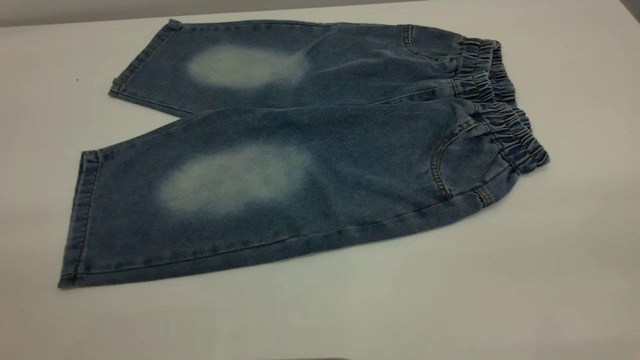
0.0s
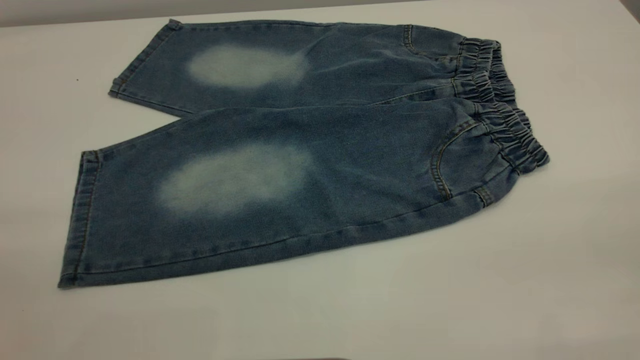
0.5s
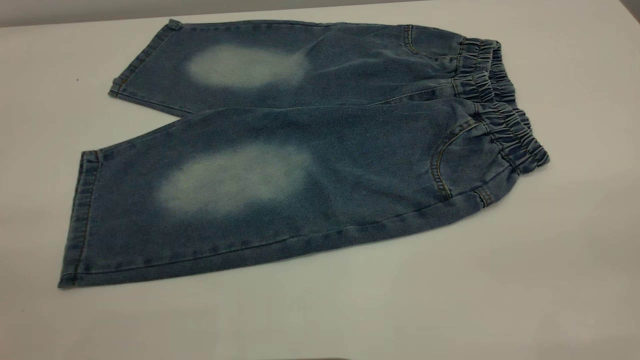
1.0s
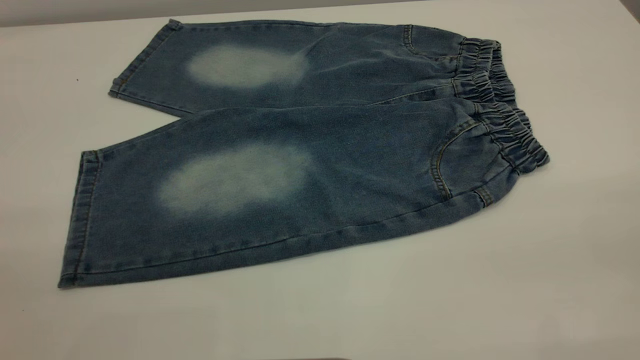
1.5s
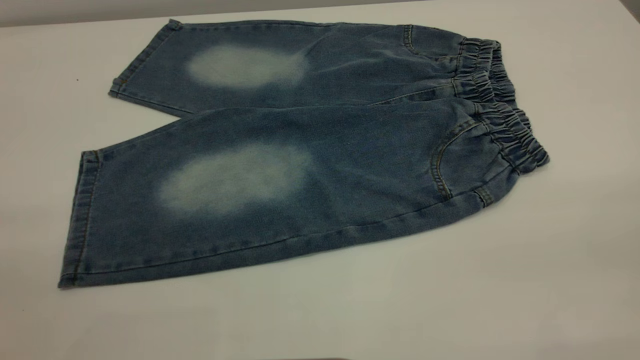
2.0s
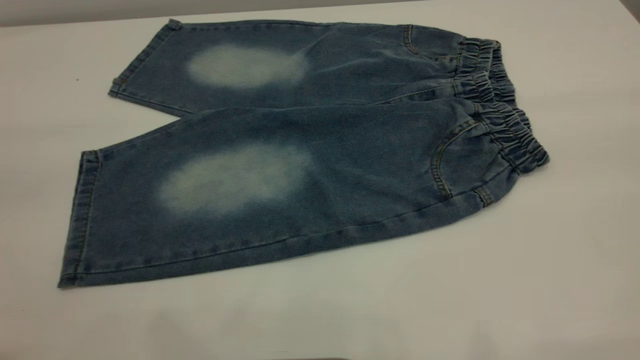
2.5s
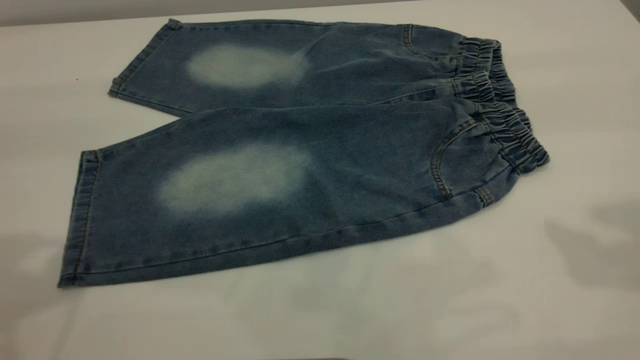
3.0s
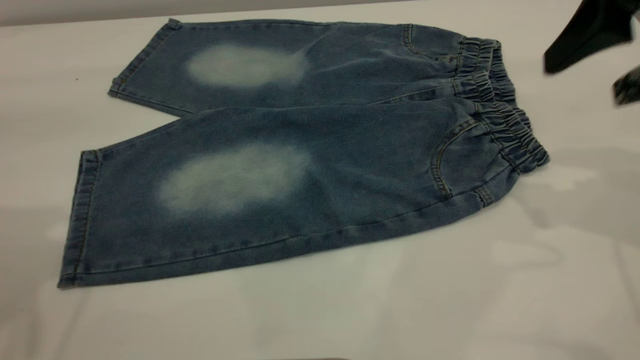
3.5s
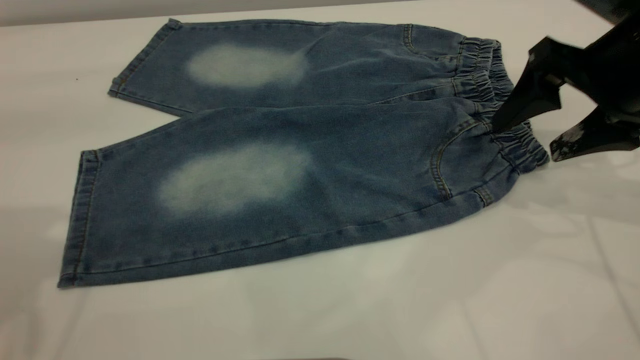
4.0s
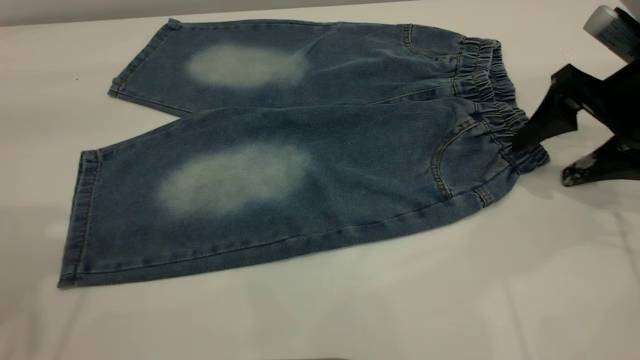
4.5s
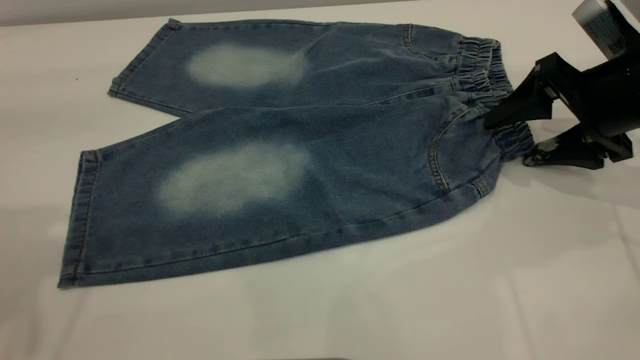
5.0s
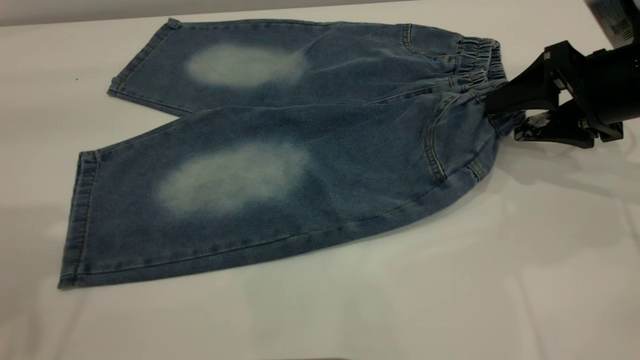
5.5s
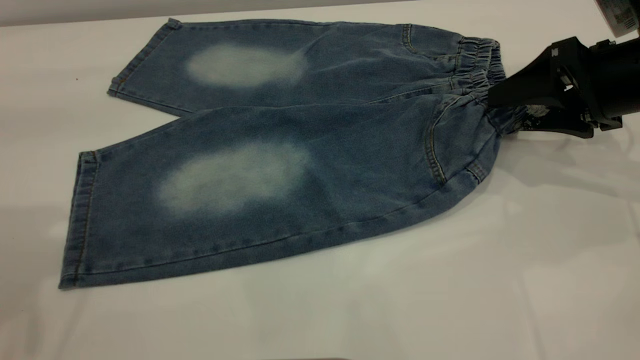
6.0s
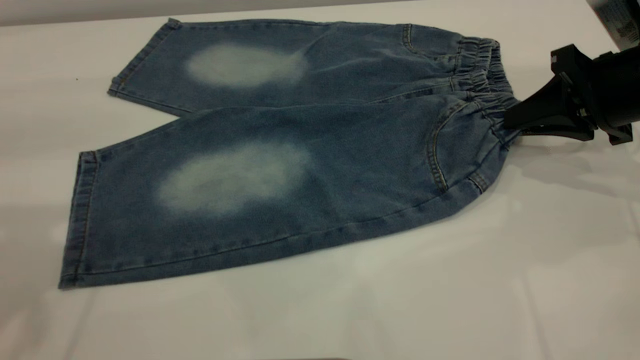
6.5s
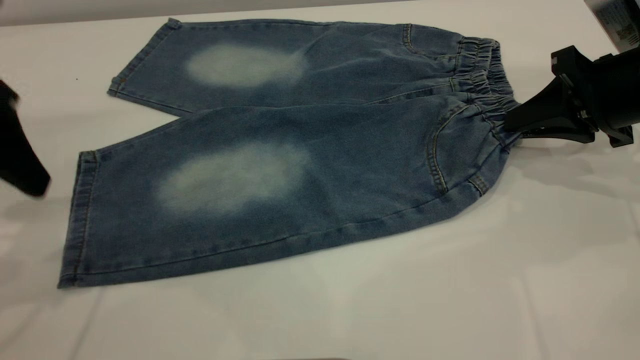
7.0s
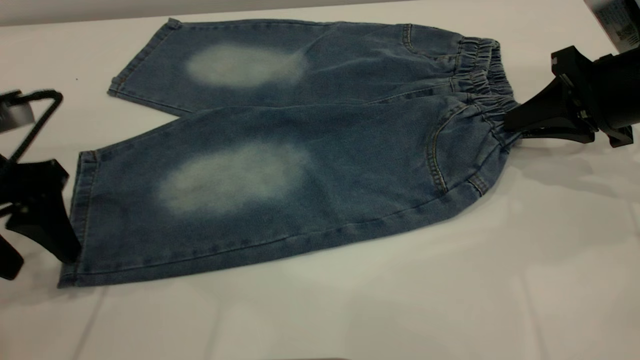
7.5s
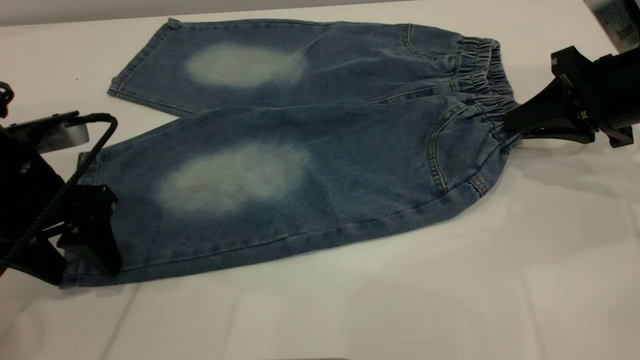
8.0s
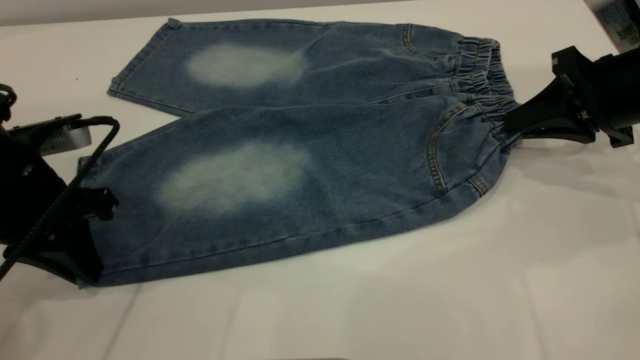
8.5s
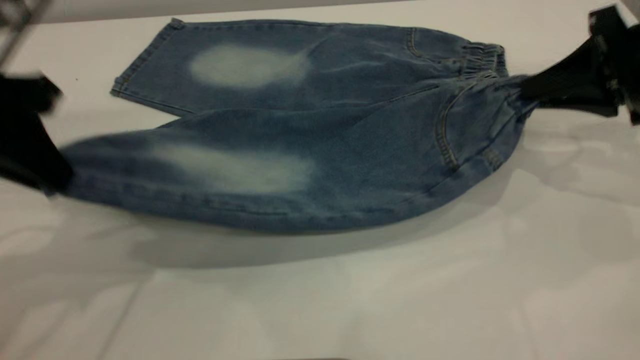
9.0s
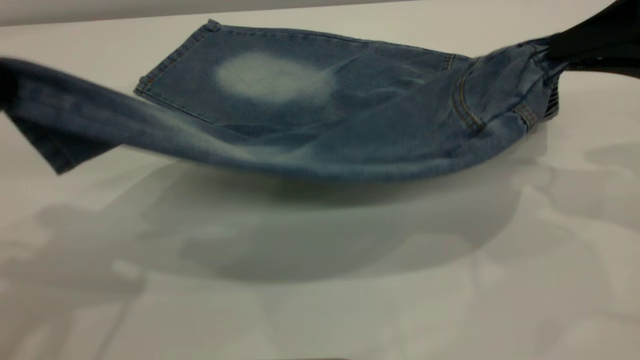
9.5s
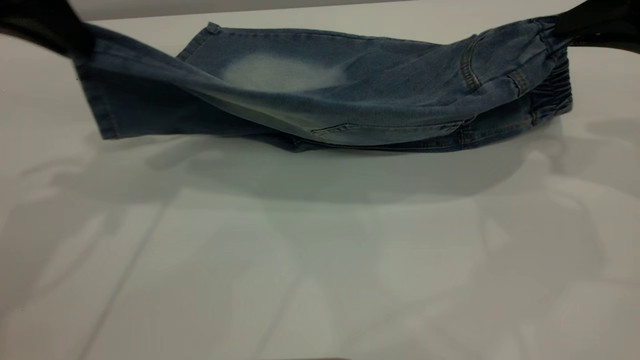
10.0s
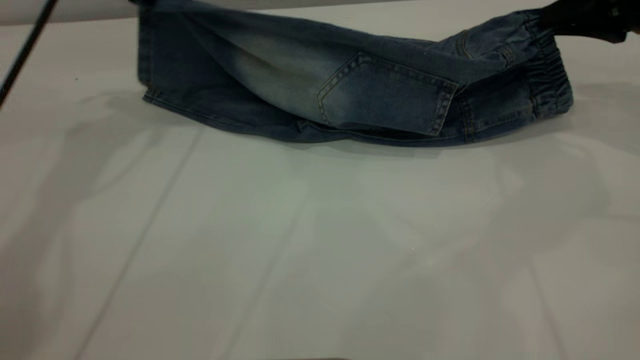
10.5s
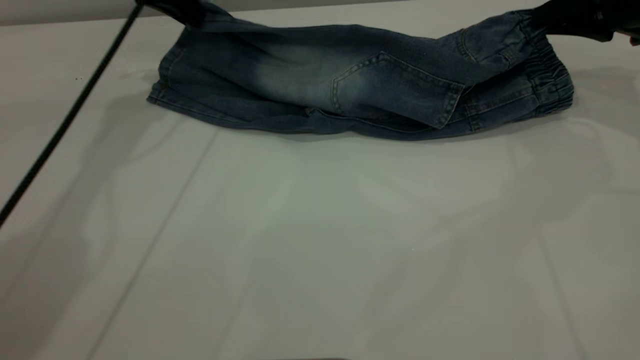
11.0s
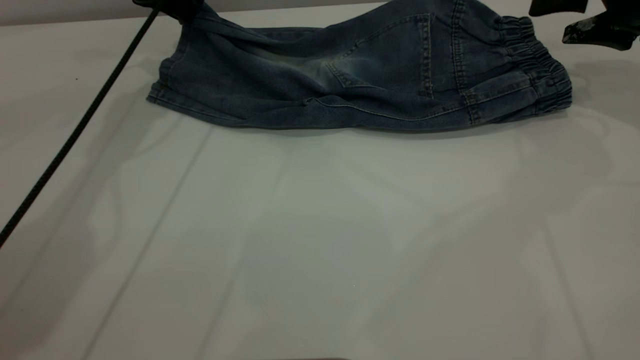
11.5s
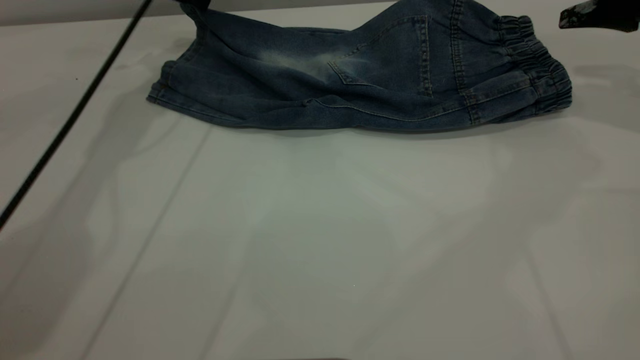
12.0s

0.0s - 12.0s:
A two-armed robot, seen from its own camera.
0.0s - 2.0s: Both grippers stay about where they are.
2.0s - 4.0s: The right gripper goes about 35 cm forward and downward.
4.0s - 6.0s: The right gripper shifts by roughly 5 cm.
6.0s - 8.0s: The right gripper closes. Meanwhile the left gripper moves downward, approximately 20 cm.
8.0s - 10.0s: The right gripper travels upward by roughly 10 cm; the left gripper goes some 15 cm upward and forward, and closes up.
10.0s - 12.0s: The left gripper heads forward, covering about 20 cm, and opens up. Meanwhile the right gripper shifts about 10 cm forward, and opens its fingers.

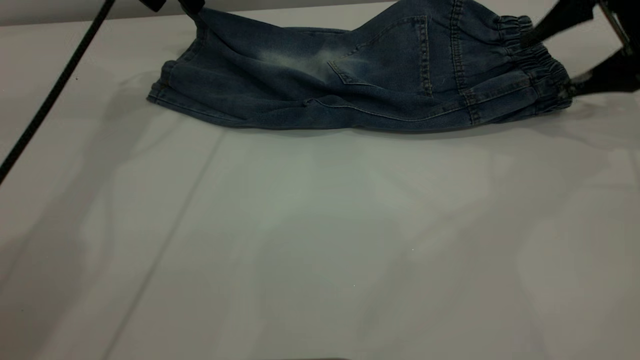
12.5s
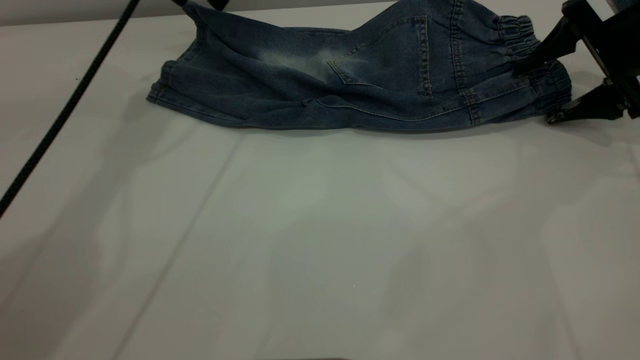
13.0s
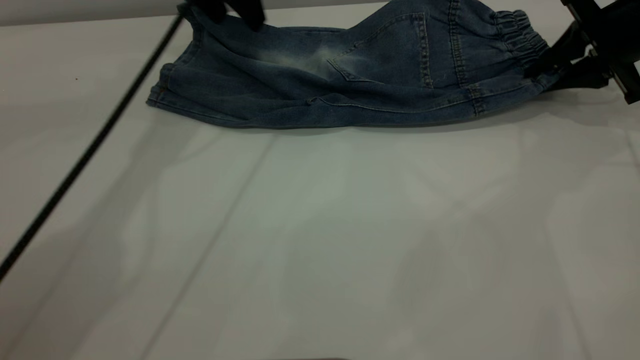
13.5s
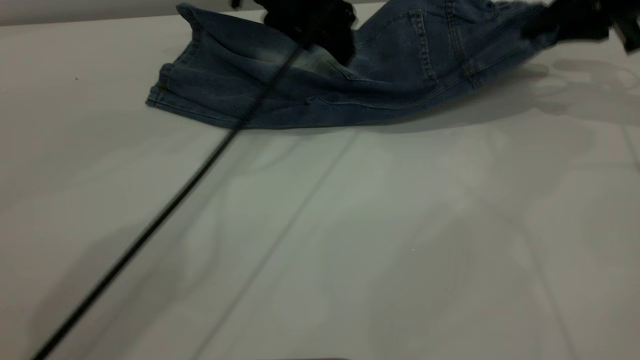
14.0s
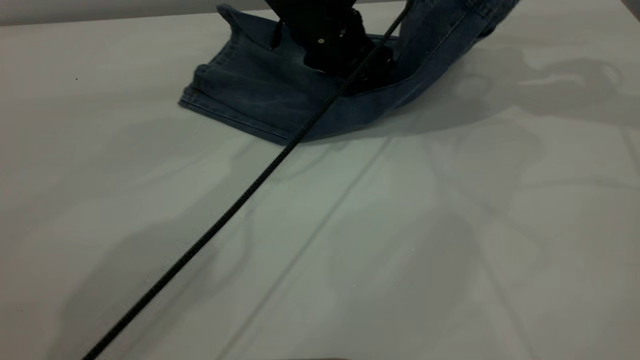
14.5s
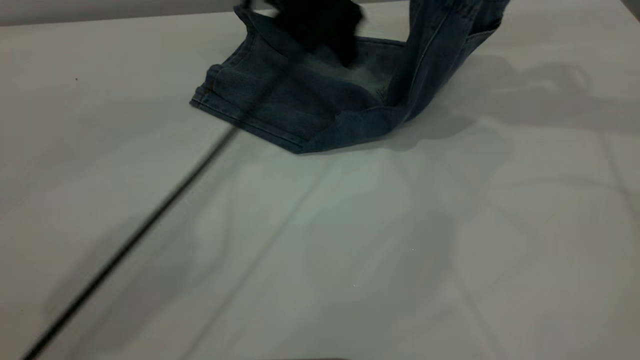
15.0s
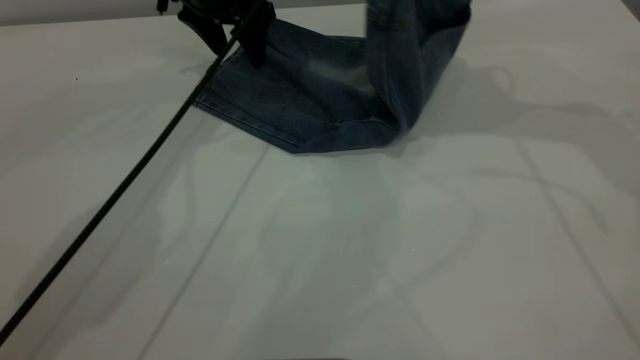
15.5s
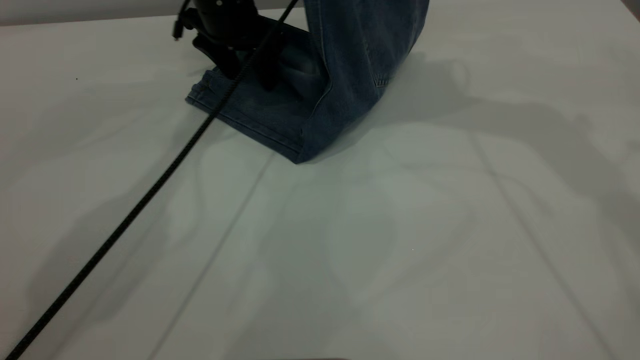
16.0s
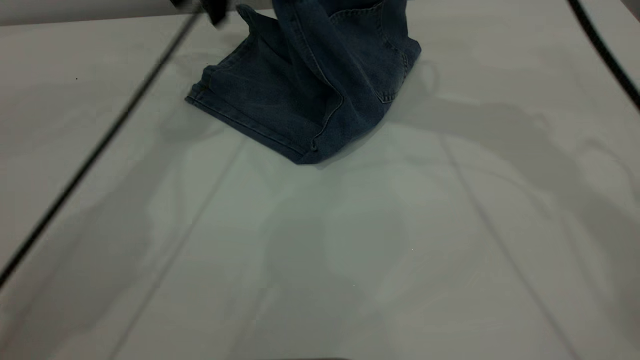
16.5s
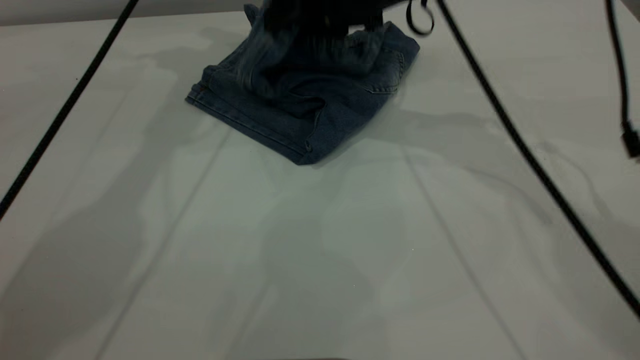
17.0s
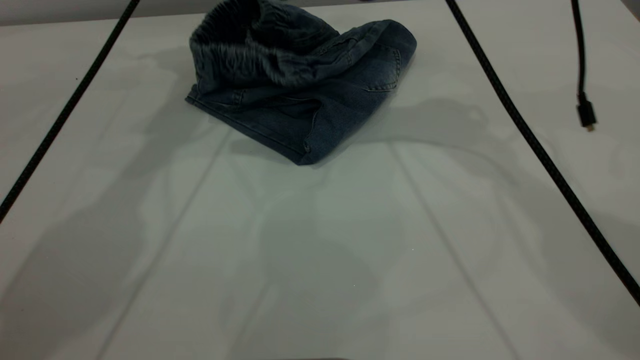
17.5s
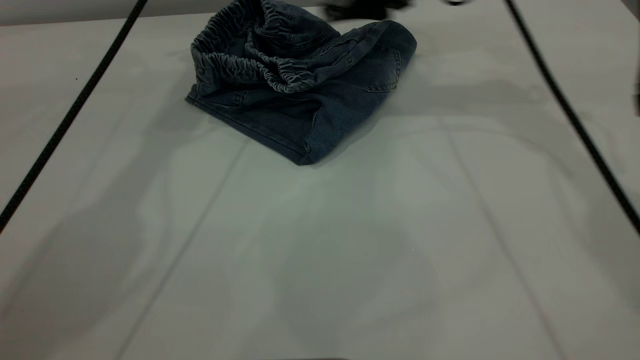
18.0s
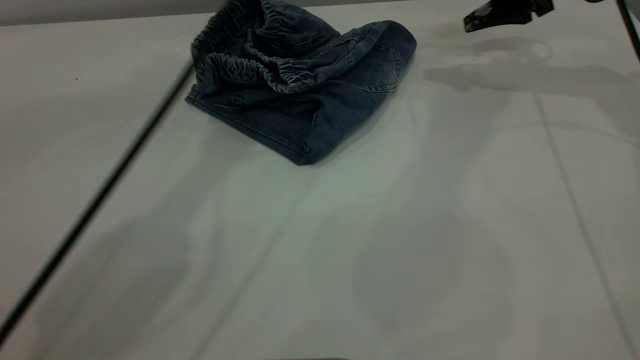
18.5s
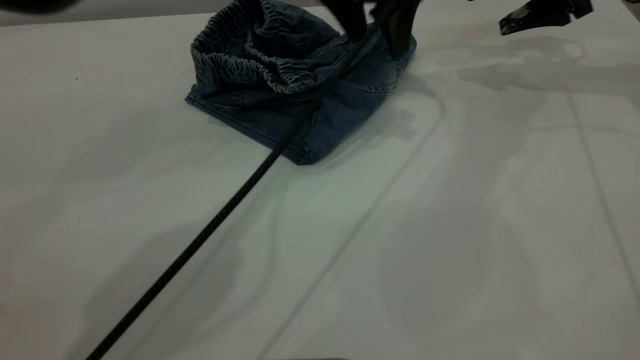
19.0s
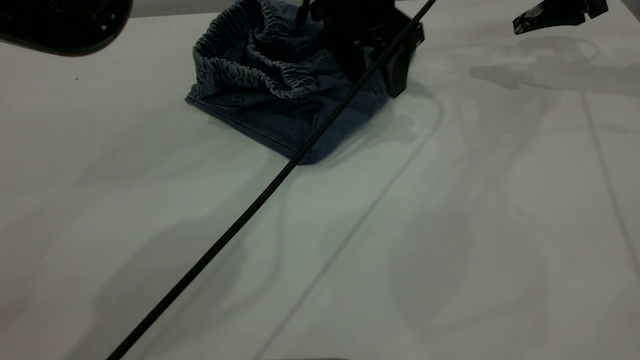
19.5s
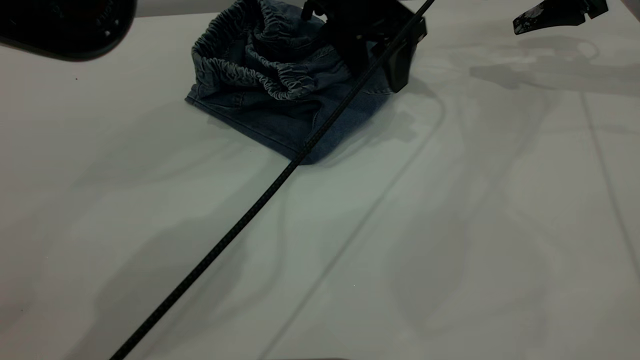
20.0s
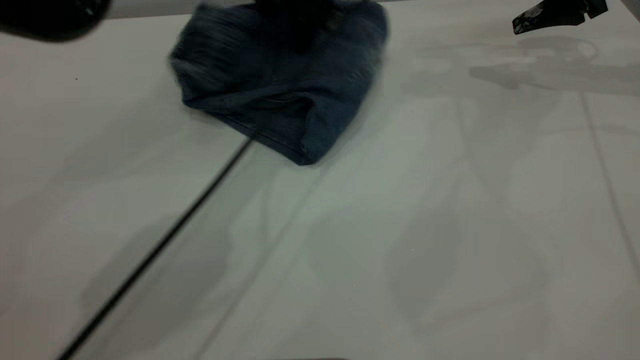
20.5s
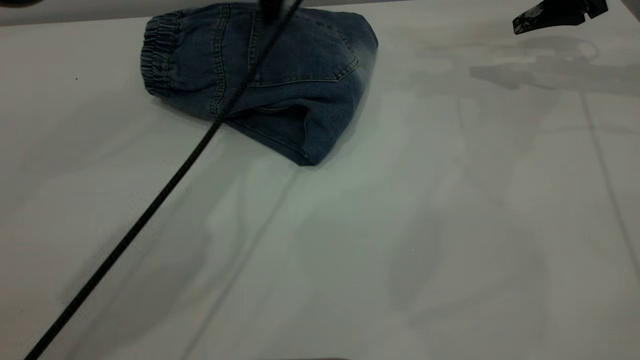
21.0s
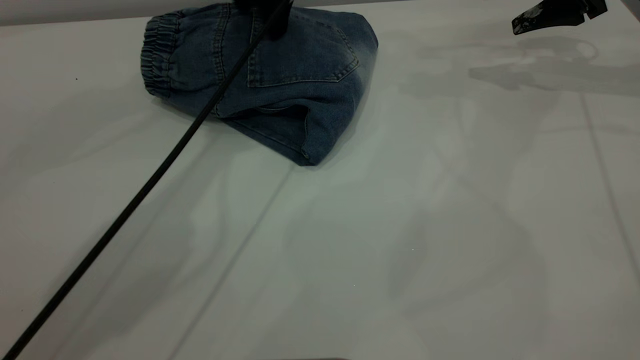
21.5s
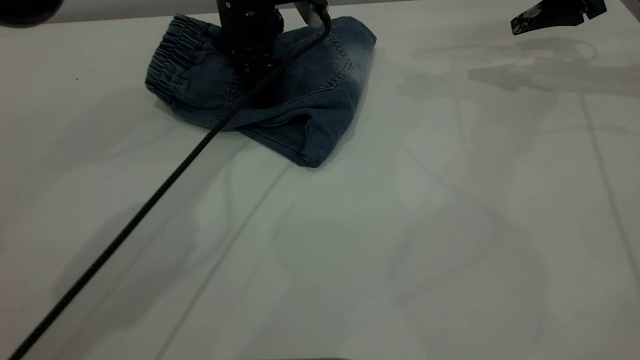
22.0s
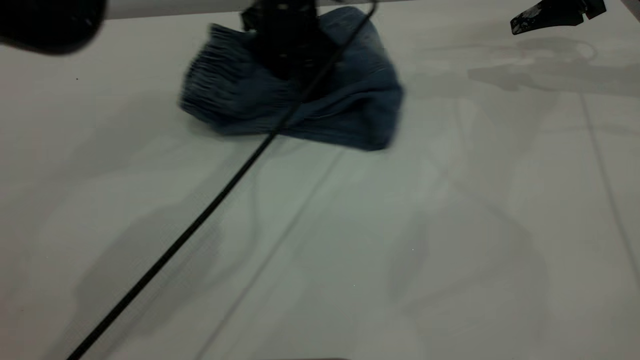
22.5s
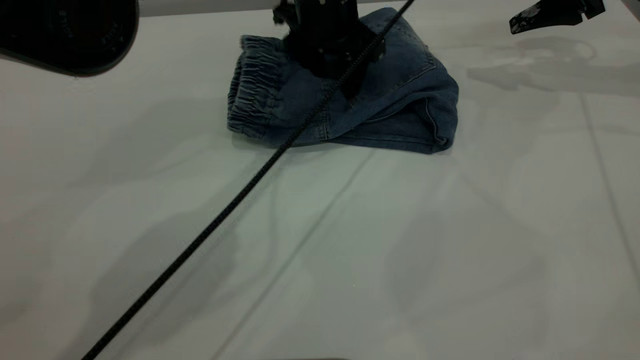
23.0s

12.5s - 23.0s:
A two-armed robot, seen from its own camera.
Step, 13.0s - 17.5s: Fold your pants from right to left.
12.5s - 14.5s: The right gripper moves upward, about 10 cm, and closes. The left gripper goes about 25 cm to the right and downward.
14.5s - 16.5s: The right gripper shifts some 20 cm to the left. Meanwhile the left gripper moves to the left, upward and forward, about 20 cm.
16.5s - 19.0s: The right gripper goes about 20 cm to the right, and opens; the left gripper goes some 20 cm to the right and backward.
19.0s - 21.0s: The left gripper moves to the left and forward, some 10 cm.
21.0s - 23.0s: The left gripper heads downward and to the right, covering roughly 10 cm.
